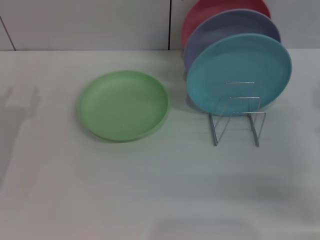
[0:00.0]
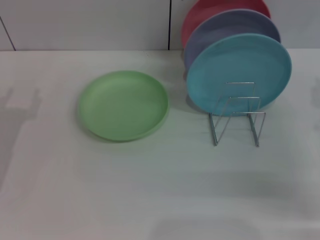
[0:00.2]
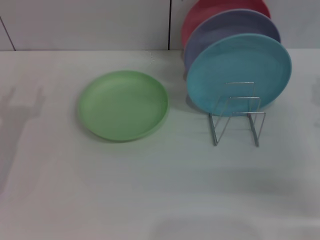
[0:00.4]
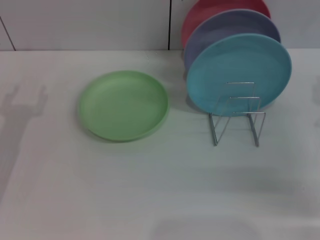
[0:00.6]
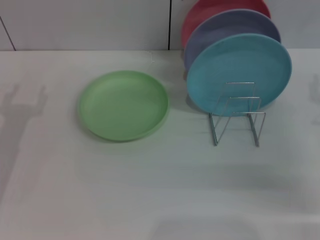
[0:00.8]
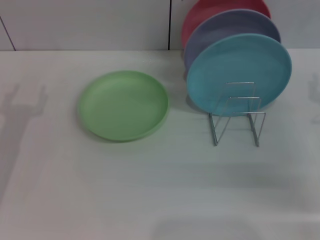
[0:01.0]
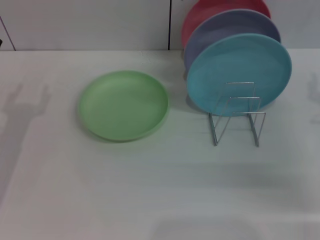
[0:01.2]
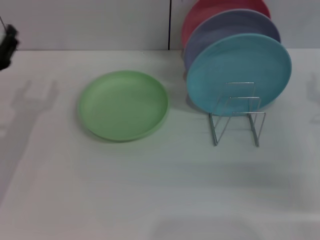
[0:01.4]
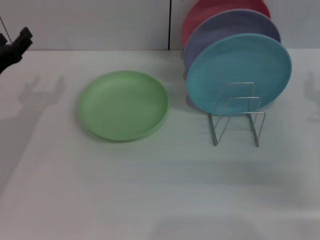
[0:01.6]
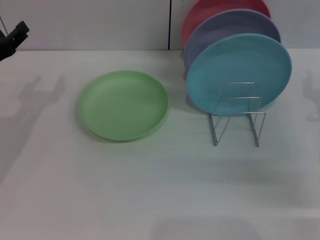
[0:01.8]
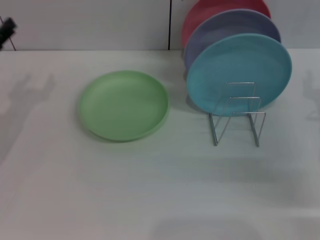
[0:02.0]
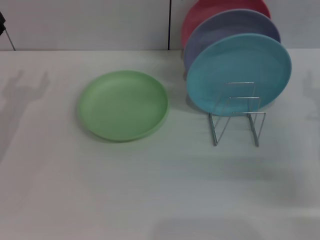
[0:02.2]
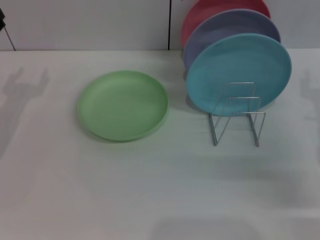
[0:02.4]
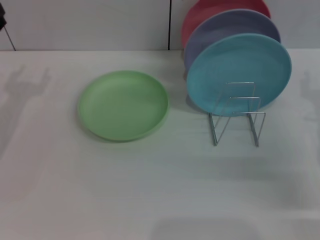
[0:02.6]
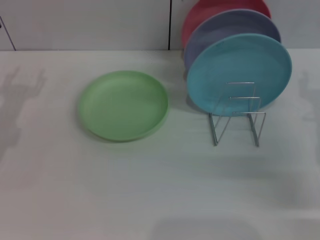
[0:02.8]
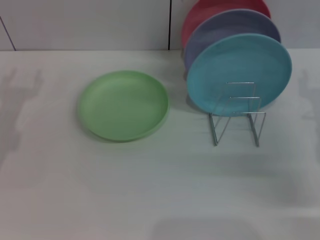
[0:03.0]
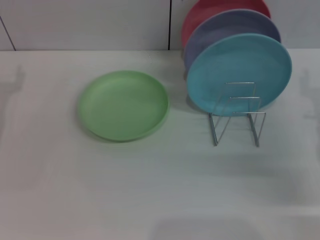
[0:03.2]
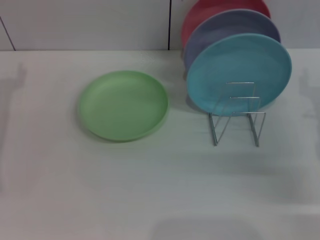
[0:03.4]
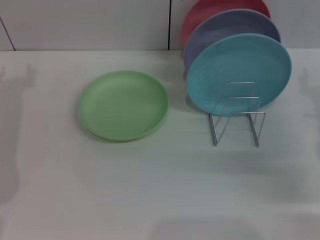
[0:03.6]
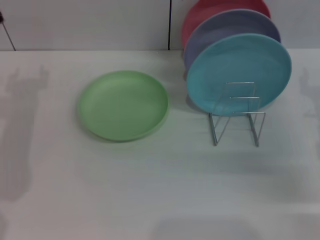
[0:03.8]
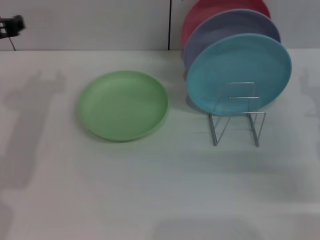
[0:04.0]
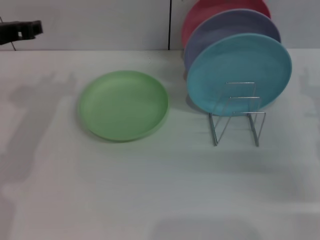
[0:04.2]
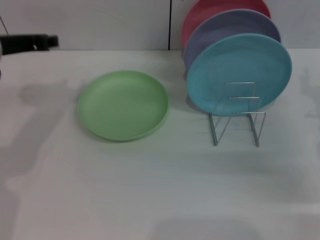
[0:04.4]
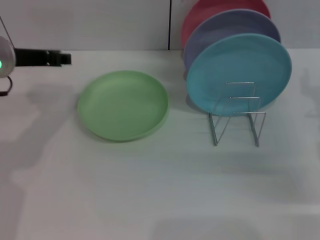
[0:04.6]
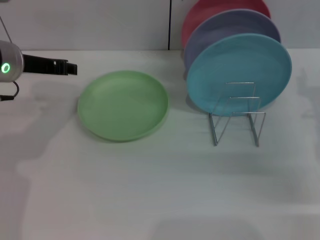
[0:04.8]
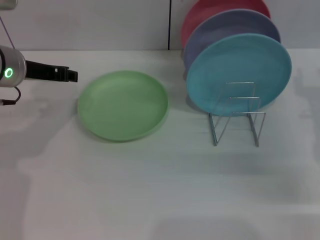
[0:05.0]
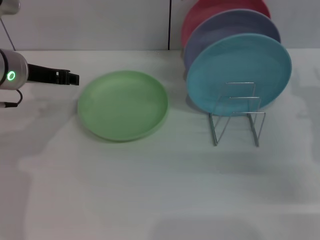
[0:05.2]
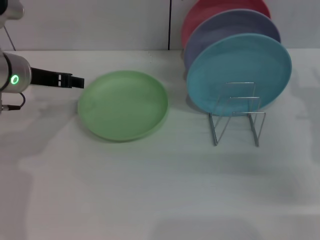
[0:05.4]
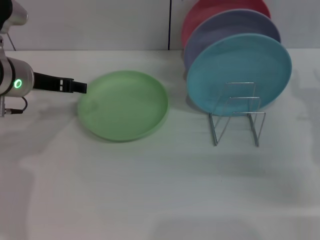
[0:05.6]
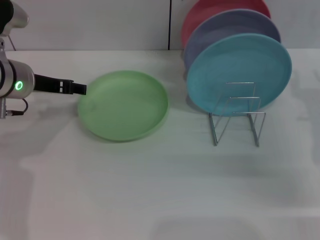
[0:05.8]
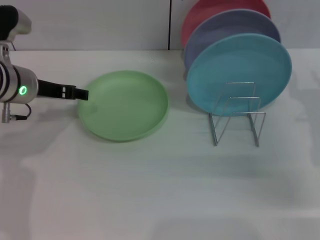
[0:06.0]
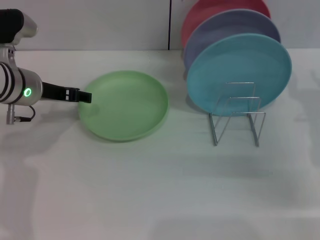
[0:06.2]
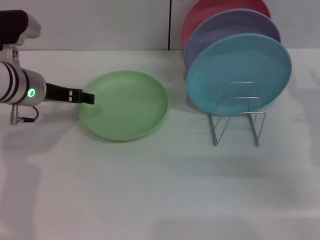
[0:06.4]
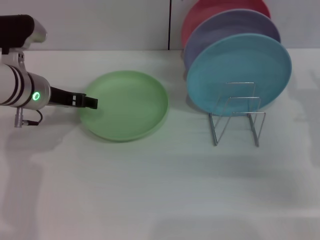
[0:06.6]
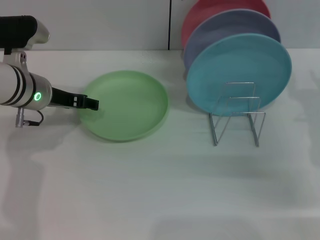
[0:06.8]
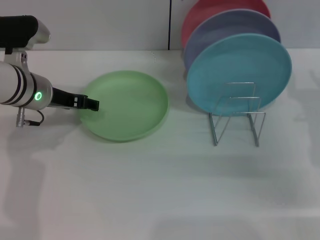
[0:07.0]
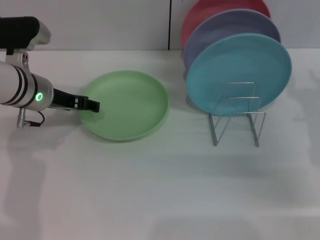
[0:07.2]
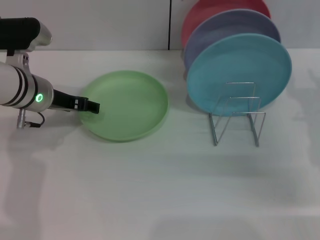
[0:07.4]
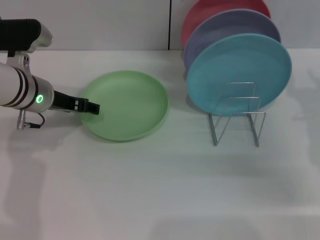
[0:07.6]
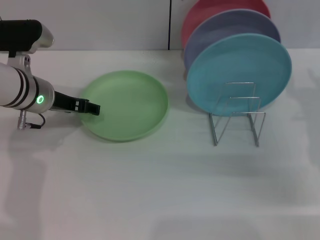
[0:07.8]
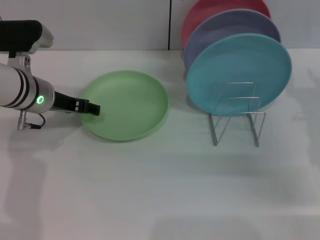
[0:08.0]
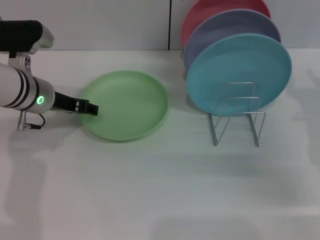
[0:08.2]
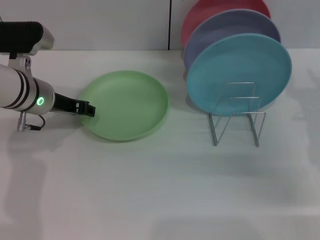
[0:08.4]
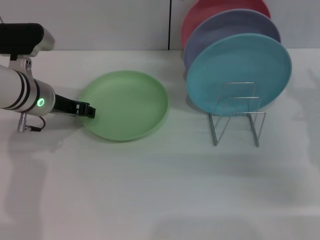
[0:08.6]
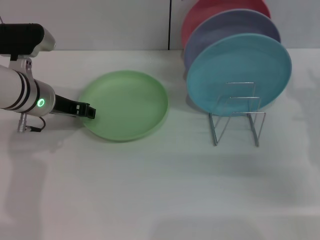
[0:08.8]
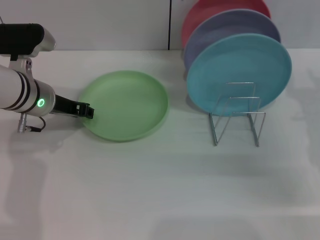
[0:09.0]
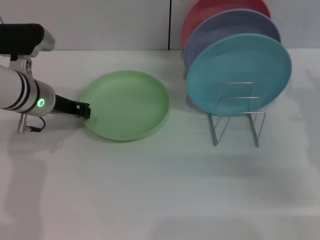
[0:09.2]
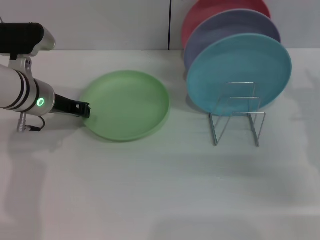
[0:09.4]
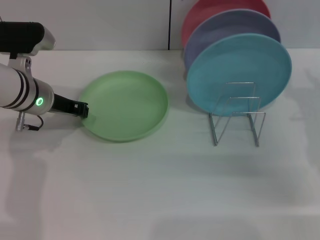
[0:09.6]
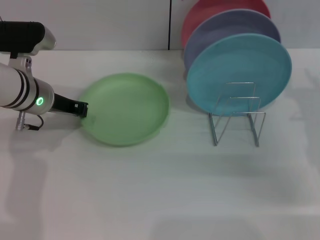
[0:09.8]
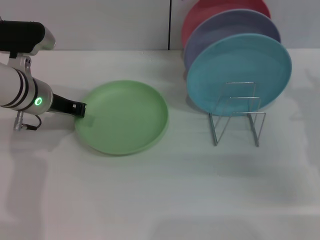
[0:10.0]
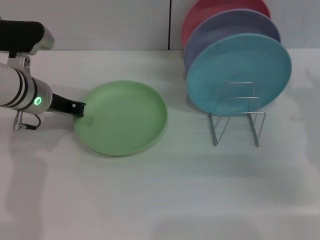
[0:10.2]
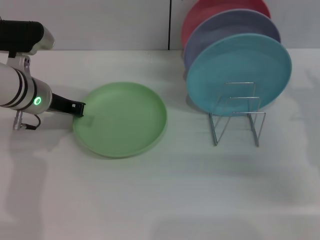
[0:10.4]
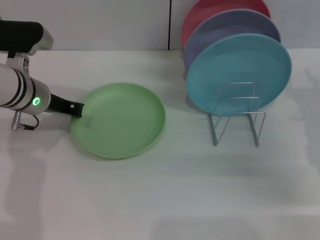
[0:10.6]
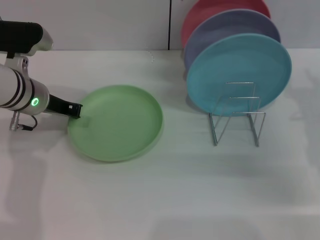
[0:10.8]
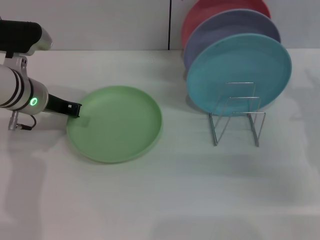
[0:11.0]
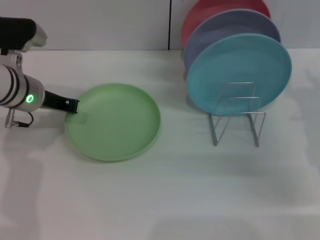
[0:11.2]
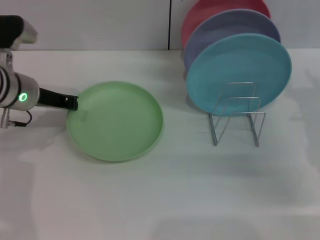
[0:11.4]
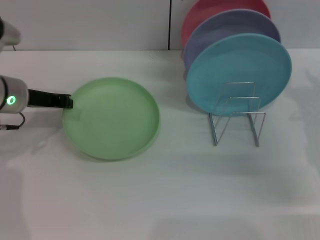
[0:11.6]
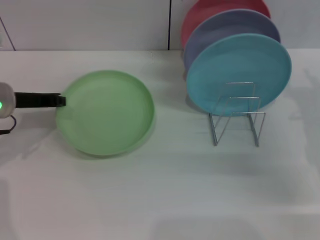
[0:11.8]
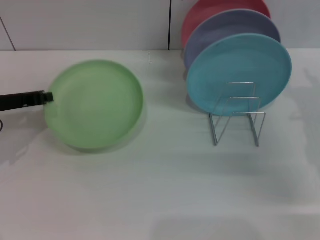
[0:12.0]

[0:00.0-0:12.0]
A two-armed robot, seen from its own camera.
Task of the whole recording: Grip the plate with one hand, pass it to the other, then set it on the shelf.
0:00.0 to 0:01.6: The left gripper shifts by approximately 5 cm.
0:03.0 to 0:04.4: The left gripper goes approximately 15 cm upward and to the right.
0:04.4 to 0:06.0: The left gripper goes some 5 cm downward, and opens up.
0:06.0 to 0:07.6: The grippers make only small movements.
0:07.6 to 0:09.0: The left gripper closes its fingers.
0:09.0 to 0:10.4: The left gripper closes up.
0:10.4 to 0:12.0: The left gripper shifts approximately 10 cm to the left.

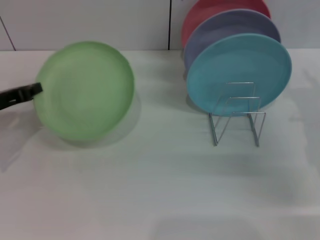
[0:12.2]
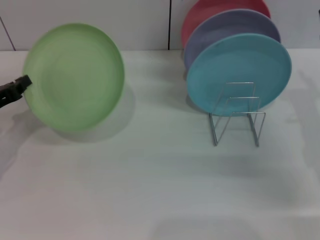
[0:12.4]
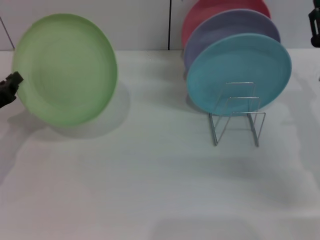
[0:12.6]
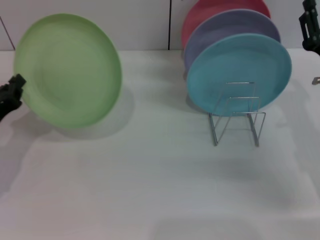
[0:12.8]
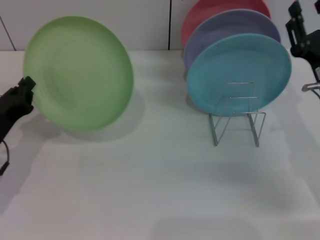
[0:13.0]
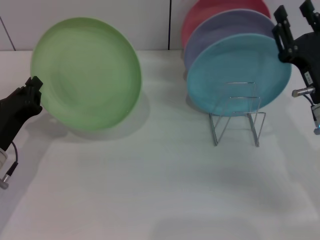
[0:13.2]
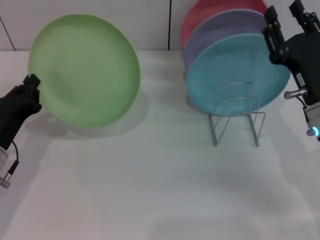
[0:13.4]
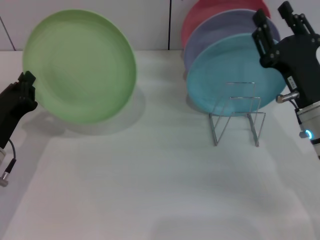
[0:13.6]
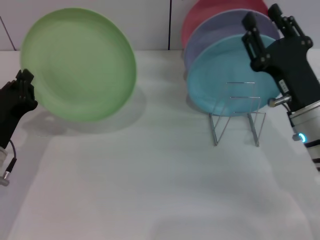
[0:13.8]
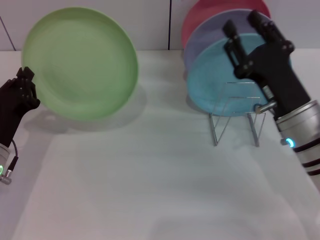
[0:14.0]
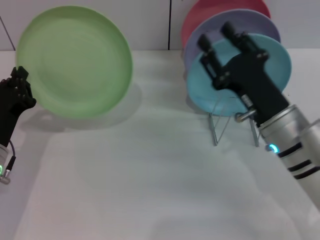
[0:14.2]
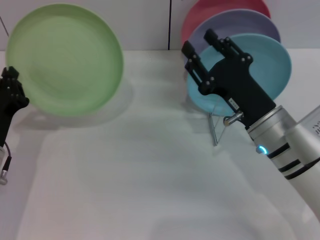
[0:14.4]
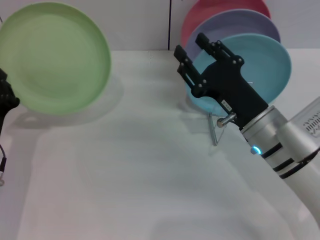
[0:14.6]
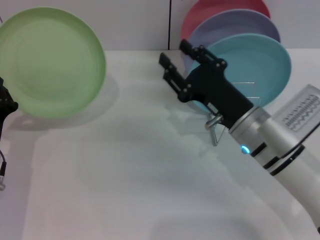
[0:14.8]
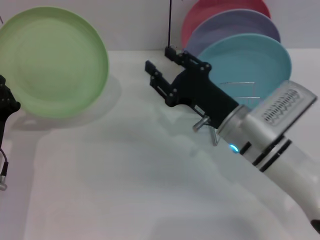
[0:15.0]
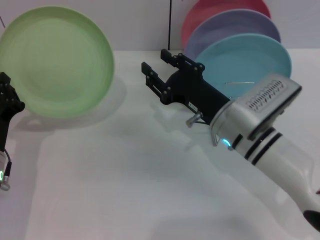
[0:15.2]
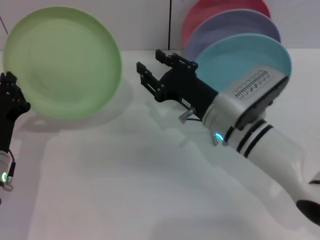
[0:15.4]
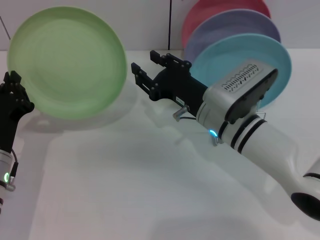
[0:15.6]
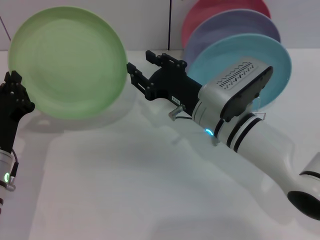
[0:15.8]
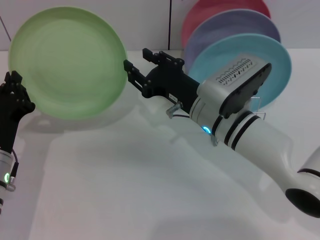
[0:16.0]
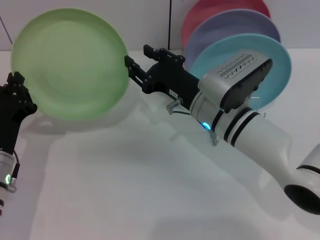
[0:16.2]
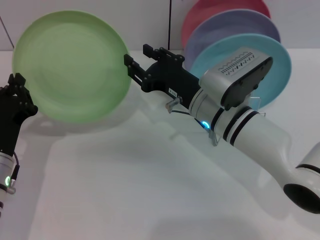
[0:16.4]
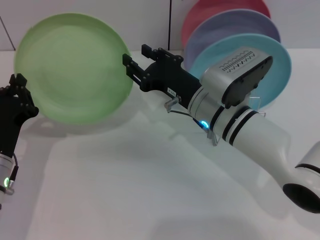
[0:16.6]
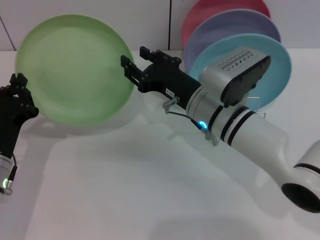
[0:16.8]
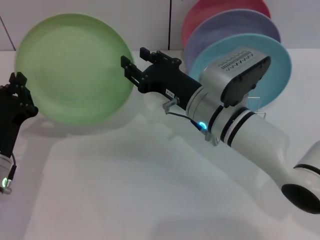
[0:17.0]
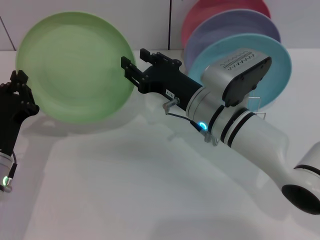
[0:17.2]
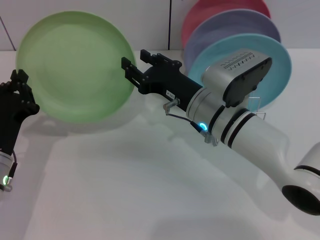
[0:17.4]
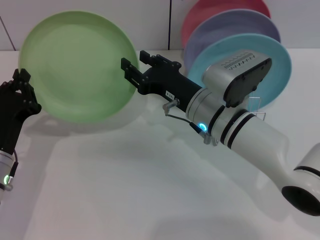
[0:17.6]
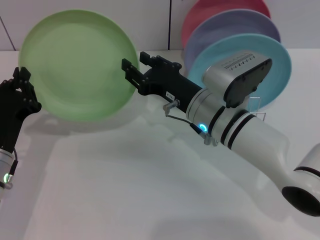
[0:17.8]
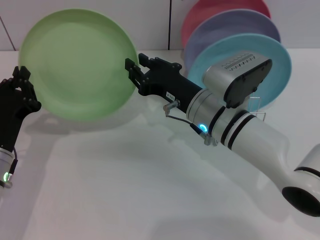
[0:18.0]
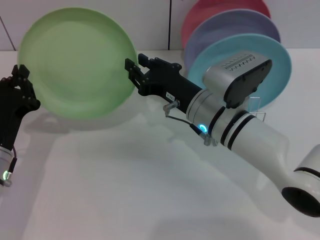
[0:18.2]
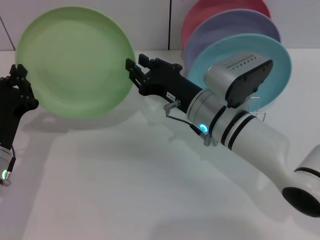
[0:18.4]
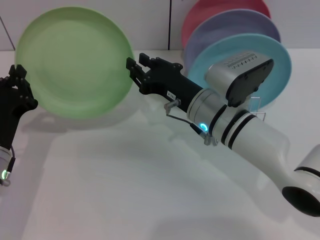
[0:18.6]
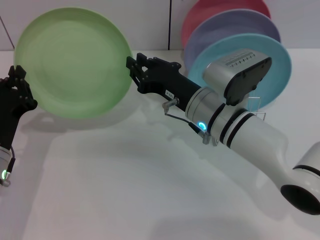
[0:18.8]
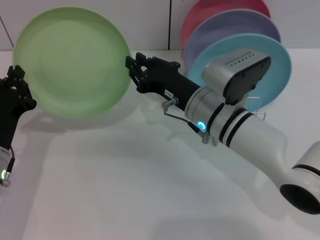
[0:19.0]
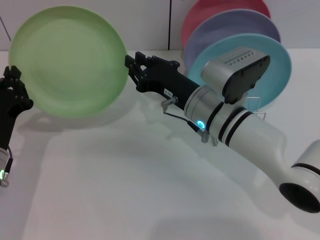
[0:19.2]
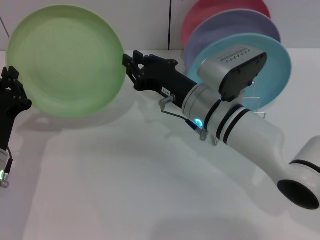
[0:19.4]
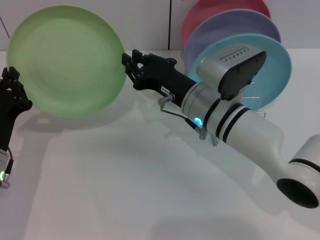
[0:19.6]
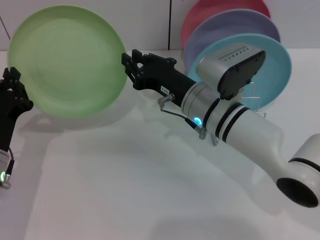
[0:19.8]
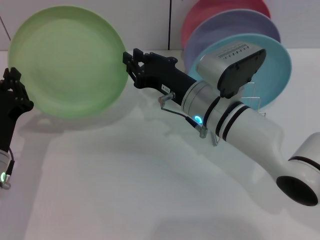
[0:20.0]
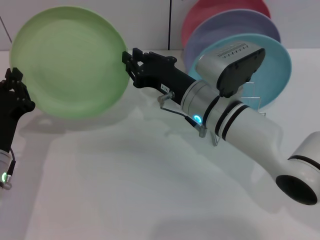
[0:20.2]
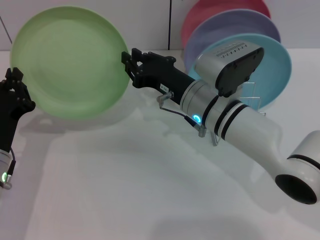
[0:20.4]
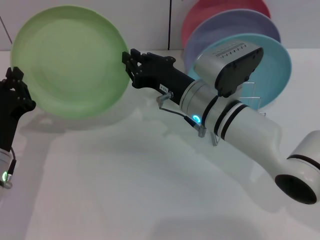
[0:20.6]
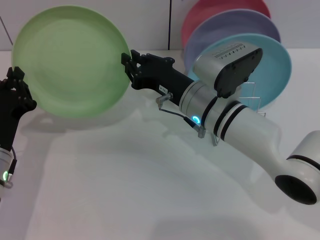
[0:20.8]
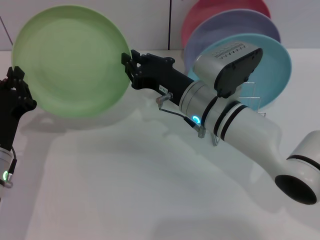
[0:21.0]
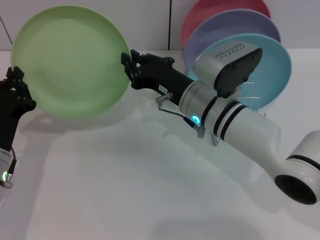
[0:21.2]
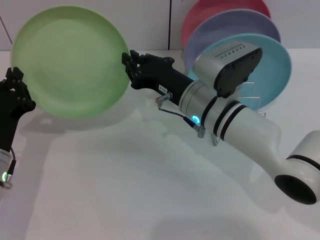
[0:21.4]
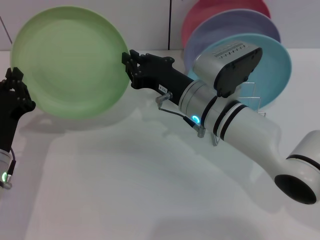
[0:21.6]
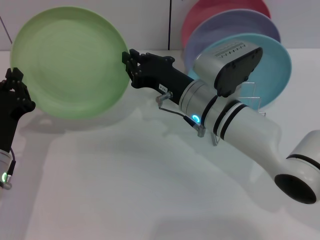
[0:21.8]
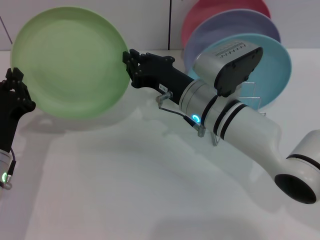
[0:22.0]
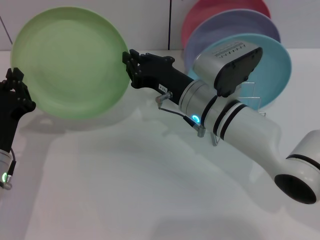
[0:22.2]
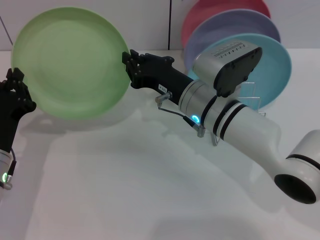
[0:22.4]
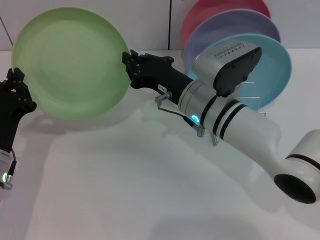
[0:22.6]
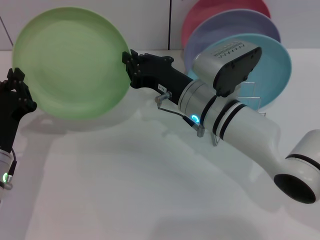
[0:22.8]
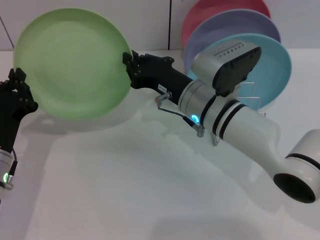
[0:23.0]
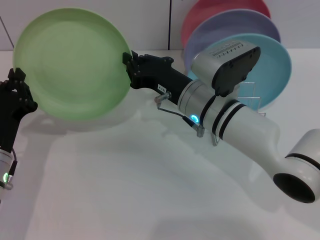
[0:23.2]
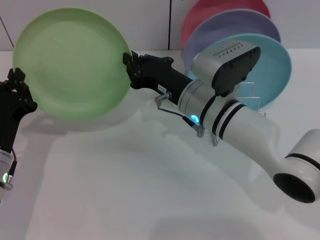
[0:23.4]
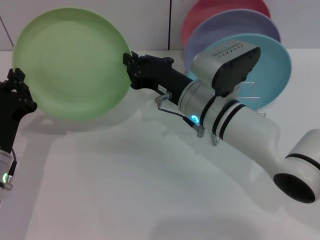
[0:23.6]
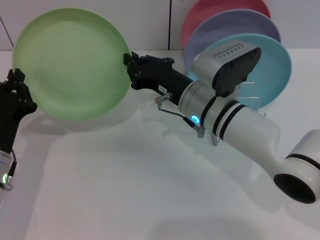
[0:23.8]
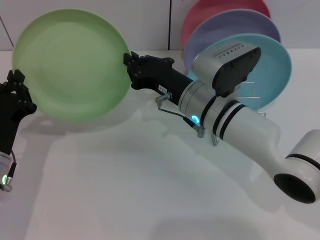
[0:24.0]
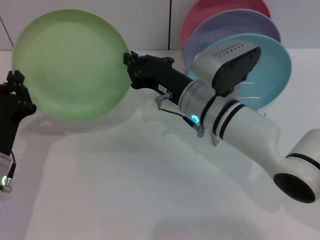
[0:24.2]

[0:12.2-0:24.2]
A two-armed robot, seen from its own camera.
Task of the whole recording: Grip the plate with one hand, pass it to the other, then set it on the shelf.
0:12.2 to 0:13.8: The right gripper heads to the left, covering some 5 cm. Meanwhile the left gripper goes some 10 cm backward, downward and to the right.
0:13.8 to 0:15.2: The right gripper moves to the left, approximately 10 cm.
0:15.2 to 0:18.2: The grippers make only small movements.
0:18.2 to 0:19.8: Both grippers stay about where they are.
0:19.8 to 0:24.2: Both grippers stay about where they are.
